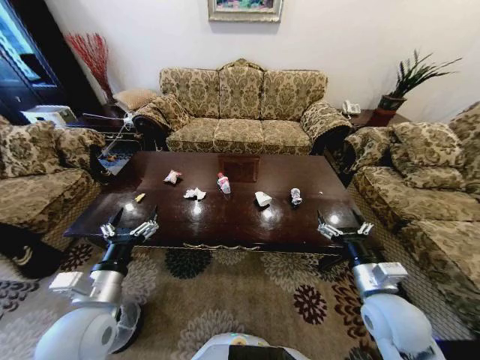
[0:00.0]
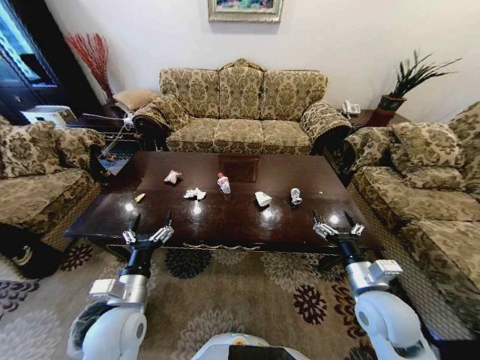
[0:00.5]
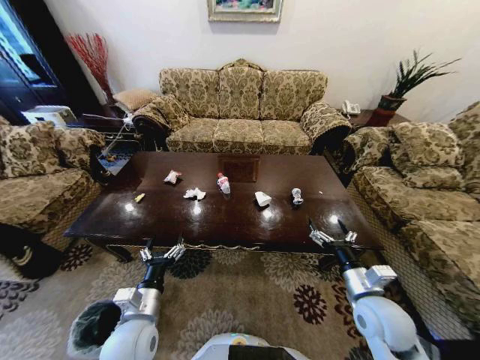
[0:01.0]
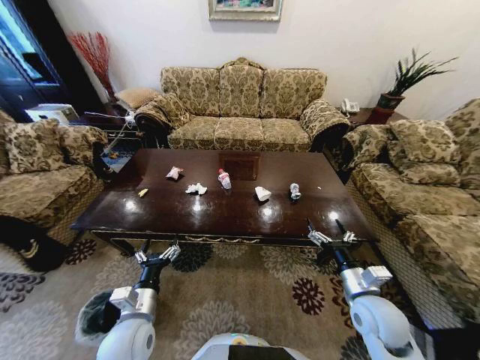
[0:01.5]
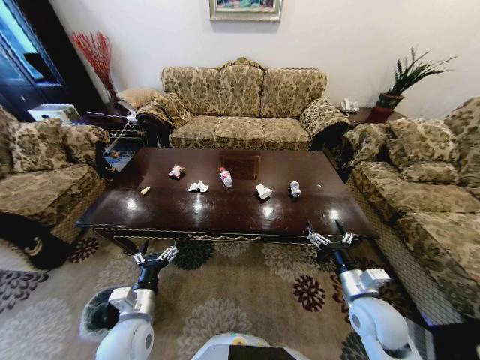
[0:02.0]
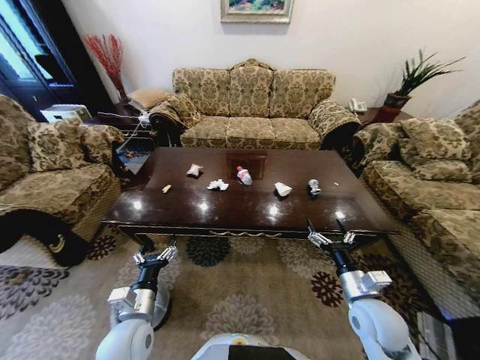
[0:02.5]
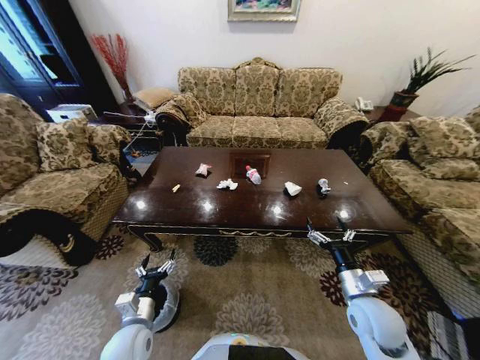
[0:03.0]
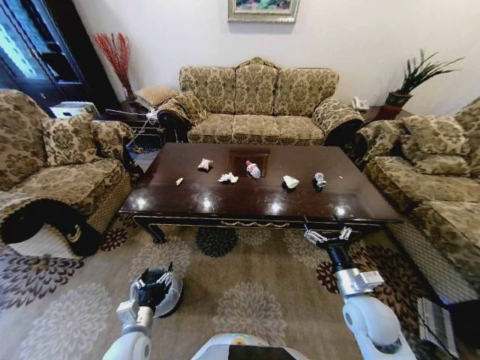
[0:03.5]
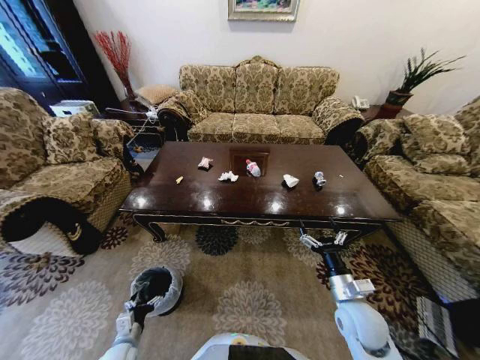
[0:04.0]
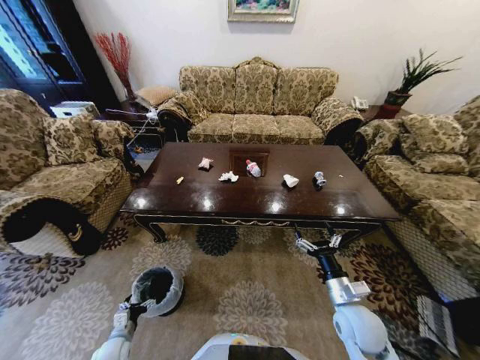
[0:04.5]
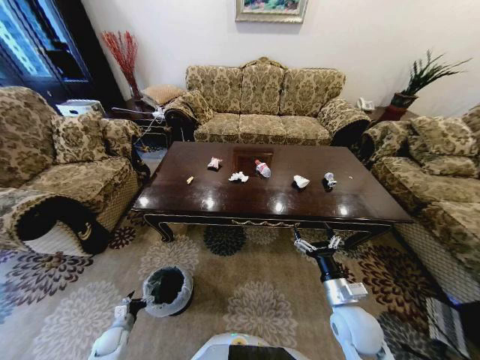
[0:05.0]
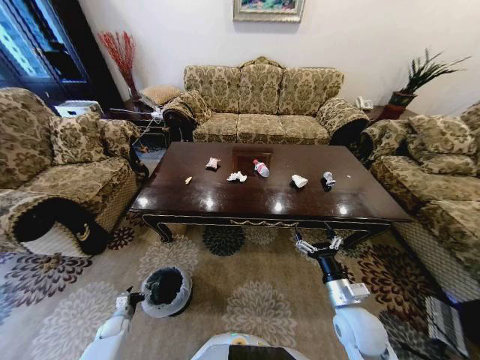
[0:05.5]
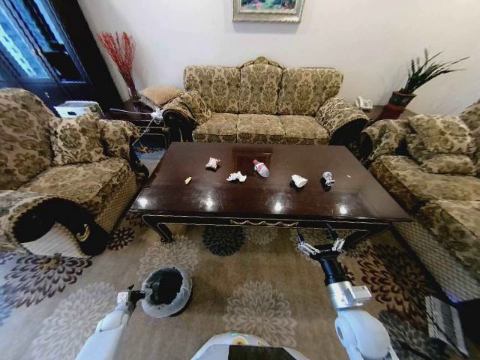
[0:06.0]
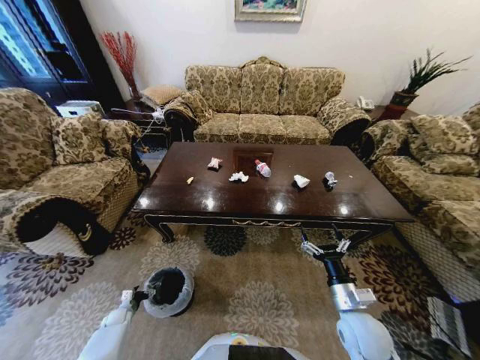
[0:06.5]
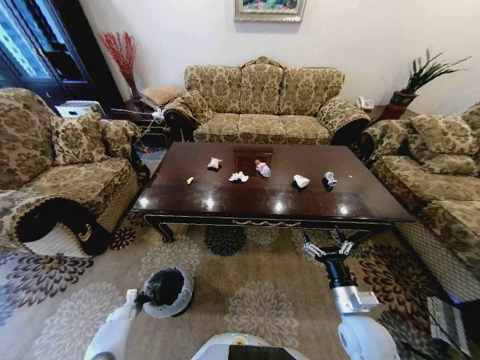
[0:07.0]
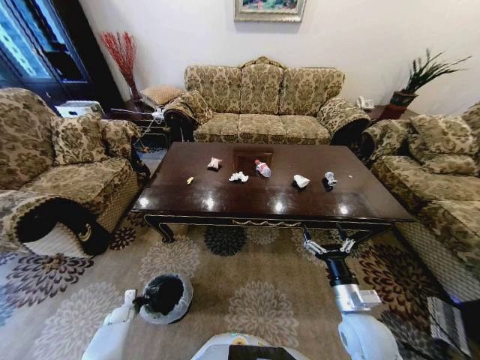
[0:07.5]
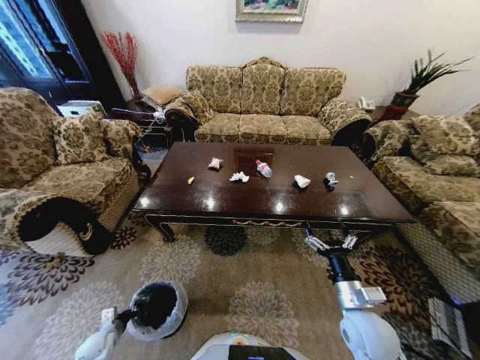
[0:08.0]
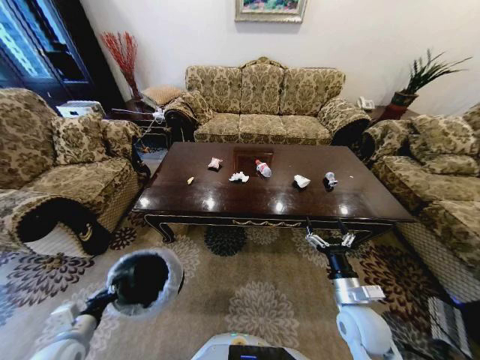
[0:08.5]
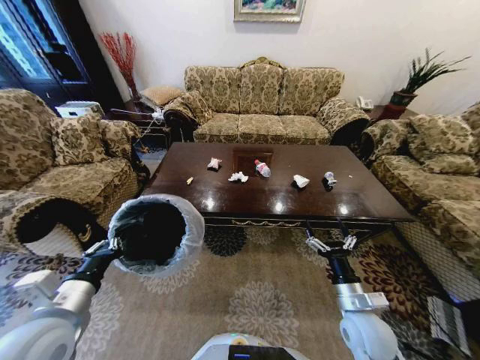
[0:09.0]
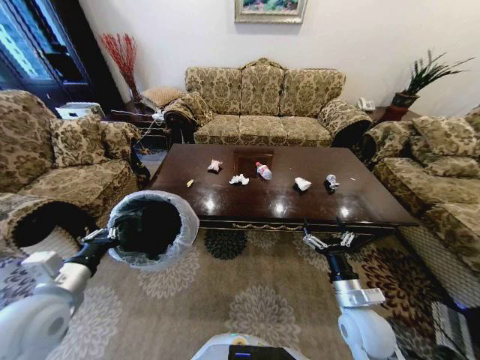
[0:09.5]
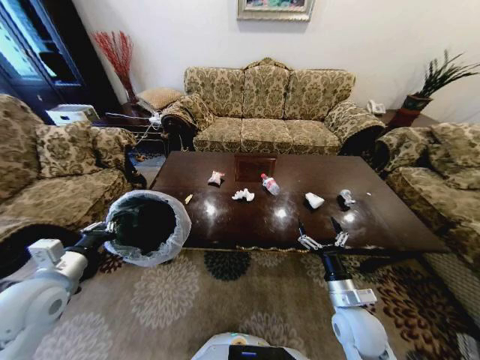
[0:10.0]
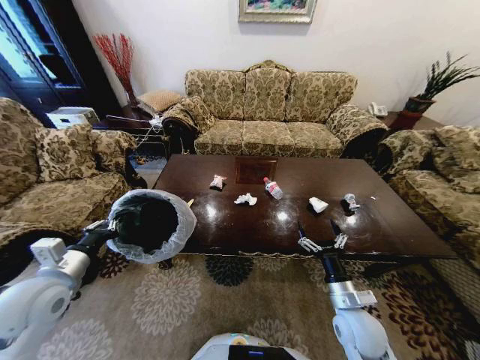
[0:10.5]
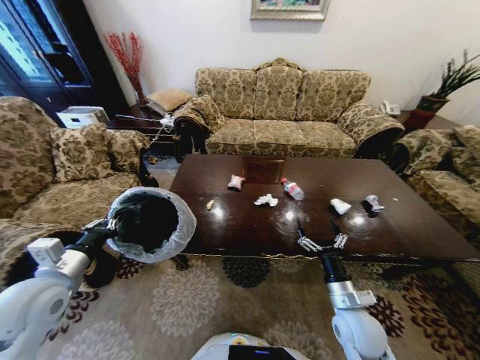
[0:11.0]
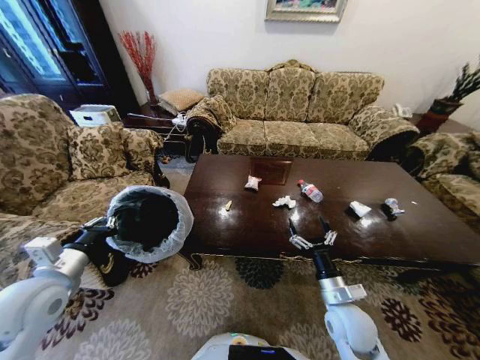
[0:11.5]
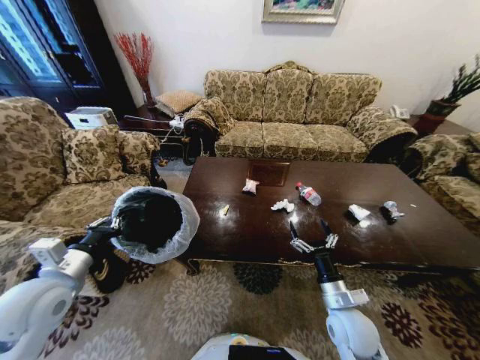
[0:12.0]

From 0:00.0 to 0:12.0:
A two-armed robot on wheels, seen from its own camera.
Task of the whole recording: Move to the front of the table and place the trash on the table into the trash bin.
From 0:02.0 to 0:04.0: The left gripper is displaced downward and to the left by roughly 20 cm.
From 0:04.0 to 0:06.0: The left gripper shifts some 20 cm to the left, downward and forward.
From 0:06.0 to 0:08.0: The left gripper goes about 5 cm backward, and closes.
From 0:08.0 to 0:10.0: The left gripper moves upward, roughly 40 cm.

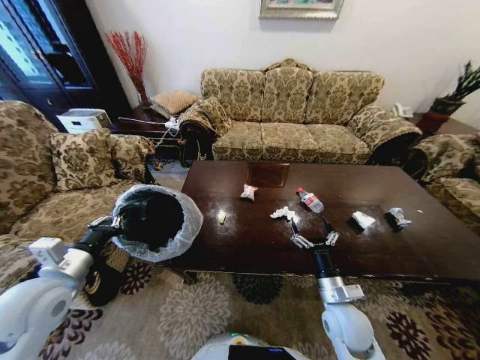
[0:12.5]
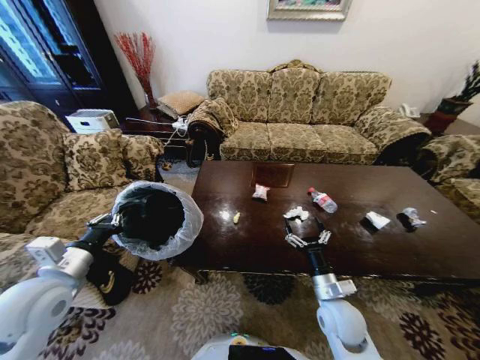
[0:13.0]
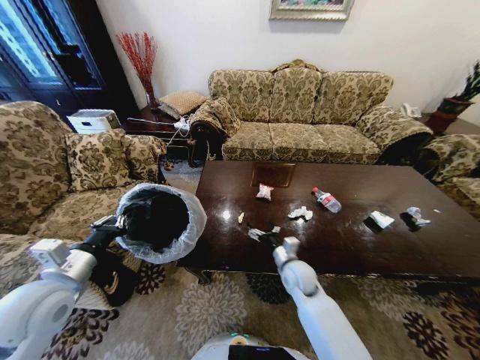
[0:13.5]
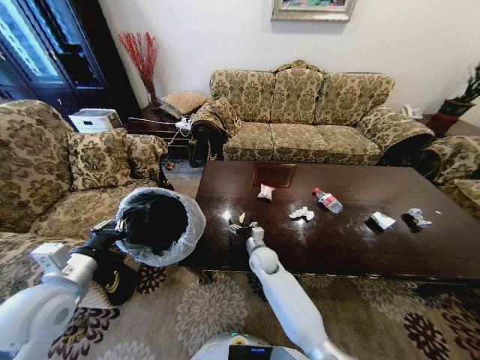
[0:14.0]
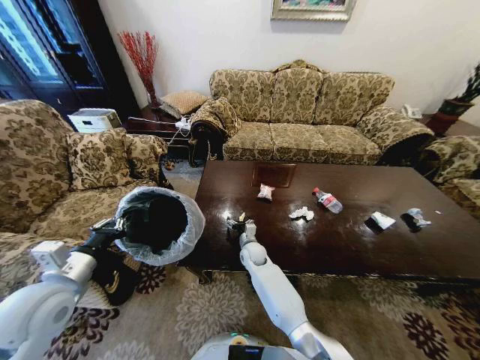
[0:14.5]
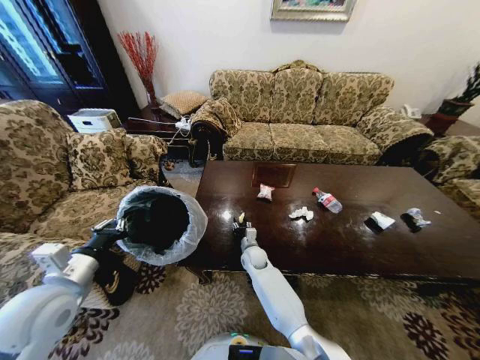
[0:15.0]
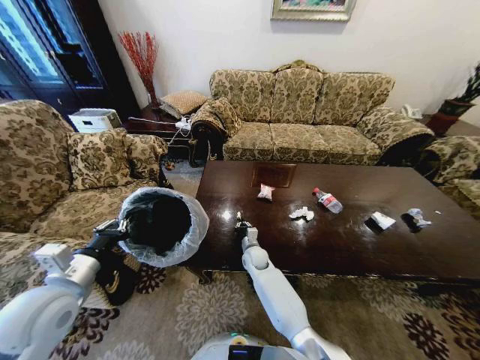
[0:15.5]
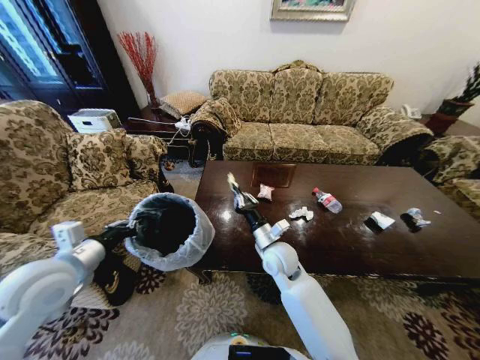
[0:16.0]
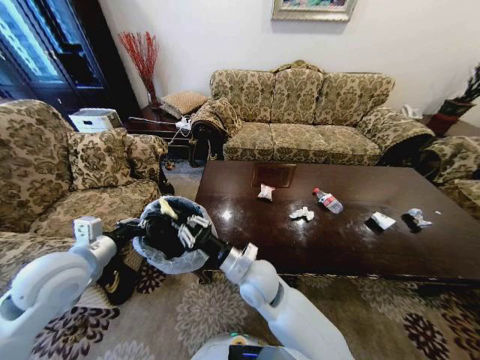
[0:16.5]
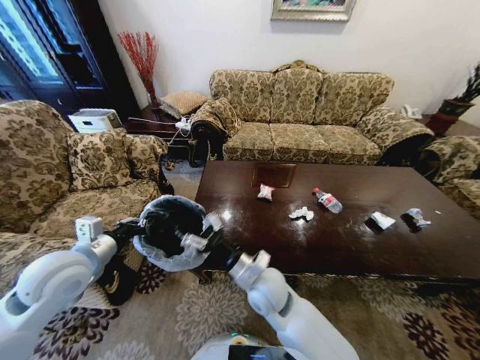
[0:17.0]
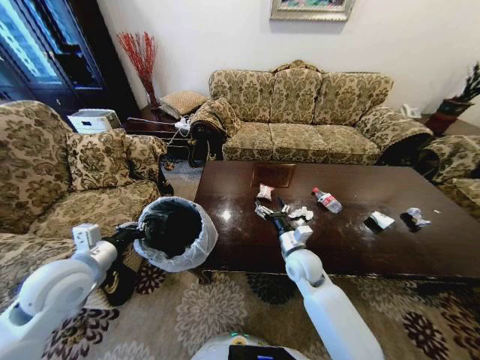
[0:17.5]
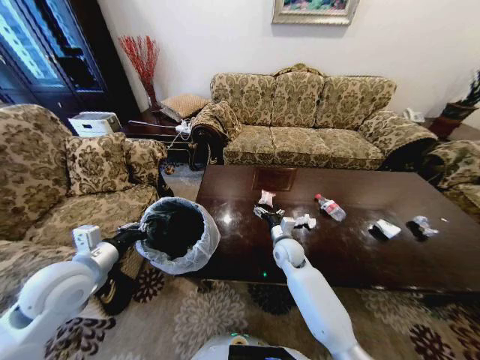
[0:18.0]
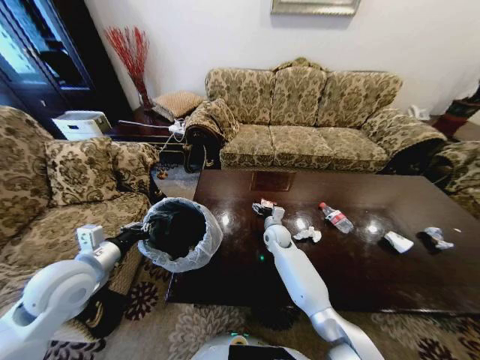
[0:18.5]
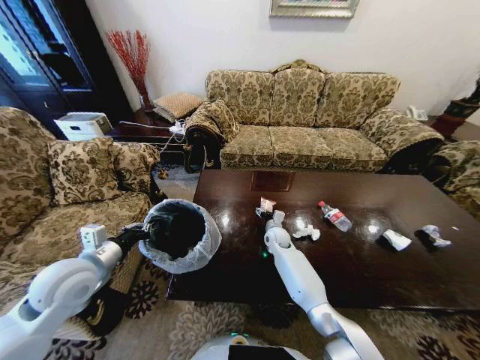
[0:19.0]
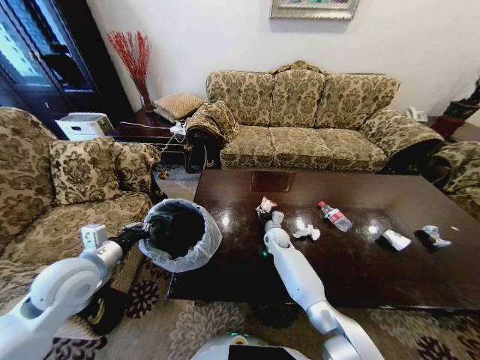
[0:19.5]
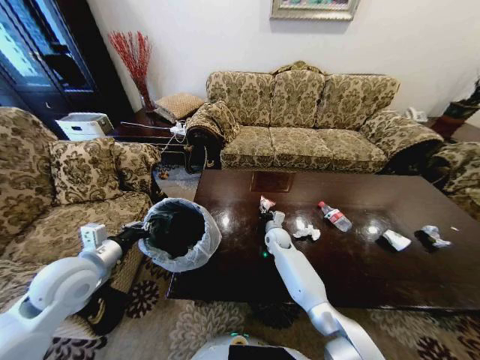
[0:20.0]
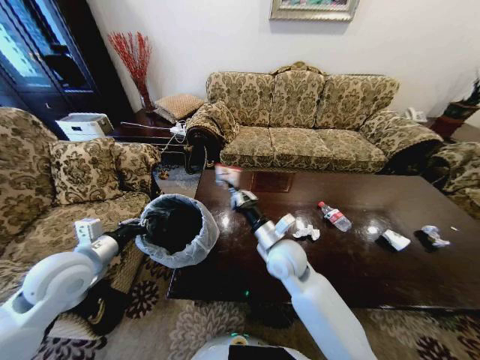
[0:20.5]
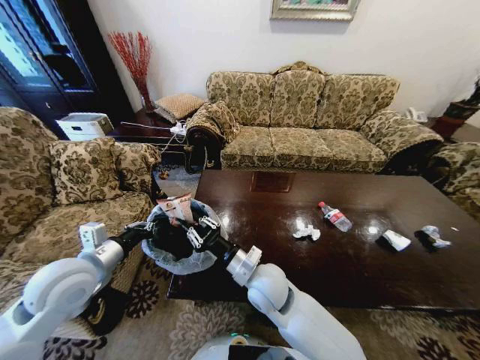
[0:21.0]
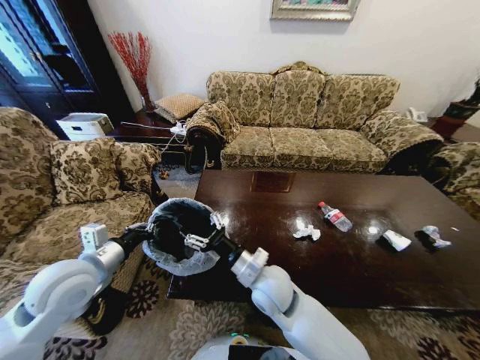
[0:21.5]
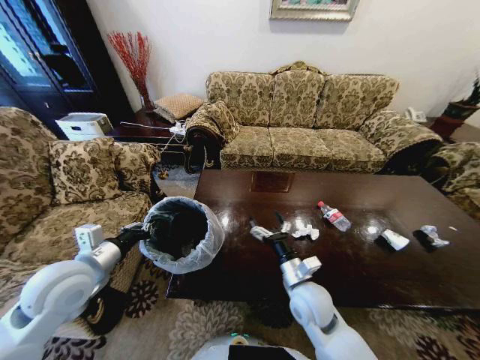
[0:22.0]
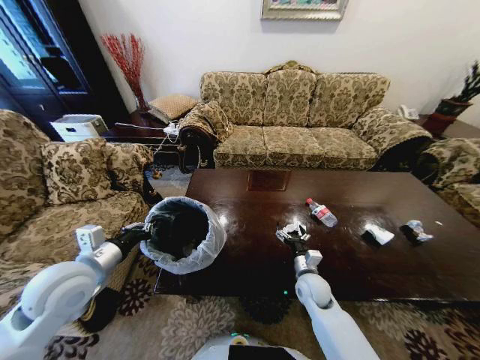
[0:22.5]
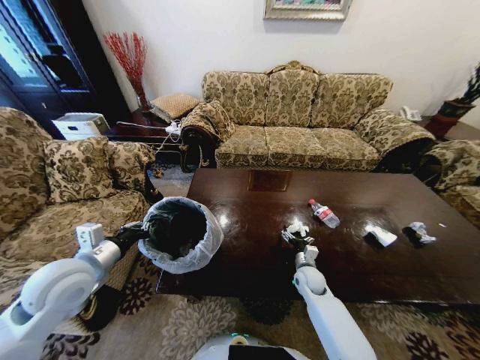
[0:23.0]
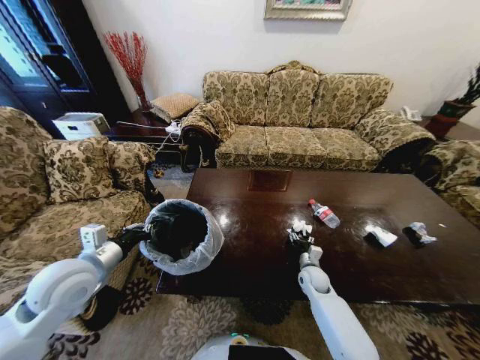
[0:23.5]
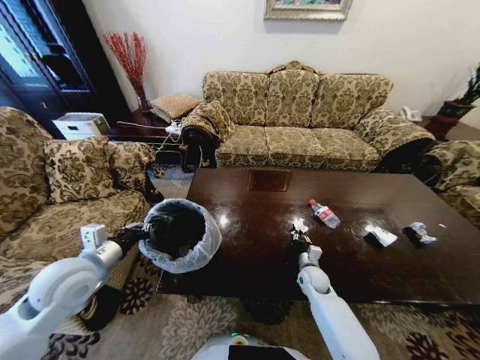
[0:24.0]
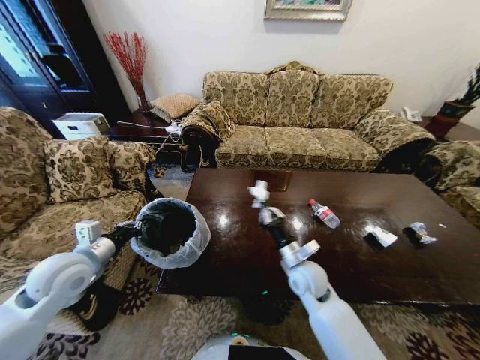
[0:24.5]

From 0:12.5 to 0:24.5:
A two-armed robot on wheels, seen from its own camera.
Task of the whole recording: Move to the front of the table and place the trash on the table into the trash bin.
From 0:12.5 to 0:14.5: The right gripper moves forward, to the left and downward, roughly 30 cm.
From 0:14.5 to 0:16.5: The left gripper changes place by some 5 cm, while the right gripper travels upward and backward by roughly 20 cm, and closes its fingers.
From 0:16.5 to 0:18.5: The right gripper goes about 25 cm forward, downward and to the right, and opens its fingers.
From 0:18.5 to 0:20.5: The right gripper shifts some 20 cm backward and upward, and closes its fingers.
From 0:20.5 to 0:22.5: The right gripper goes roughly 20 cm downward and to the right, and opens up.
From 0:22.5 to 0:24.5: The right gripper is displaced upward by approximately 5 cm, and closes its fingers. Meanwhile the left gripper moves roughly 5 cm.

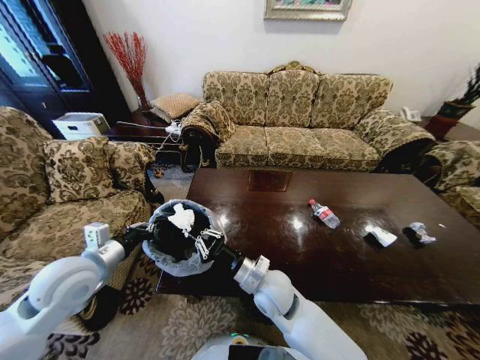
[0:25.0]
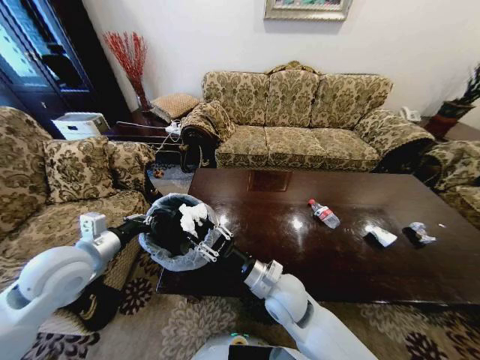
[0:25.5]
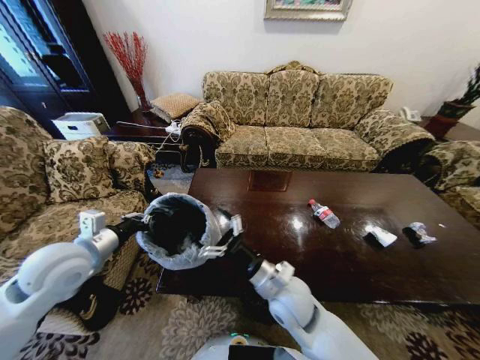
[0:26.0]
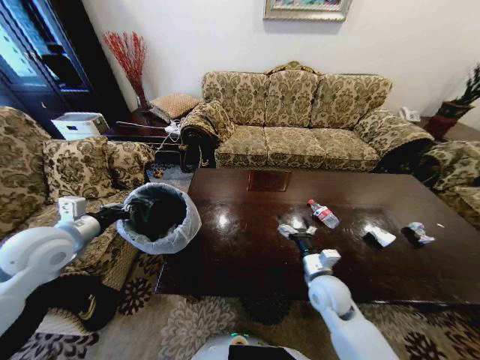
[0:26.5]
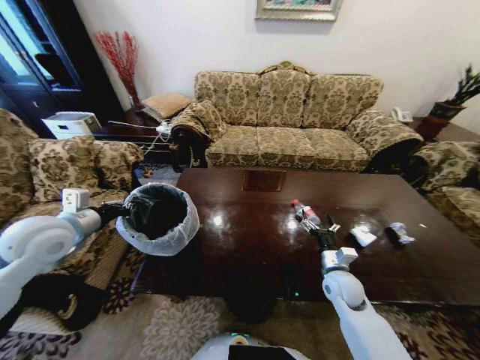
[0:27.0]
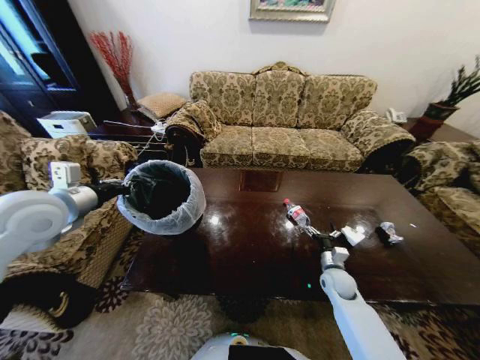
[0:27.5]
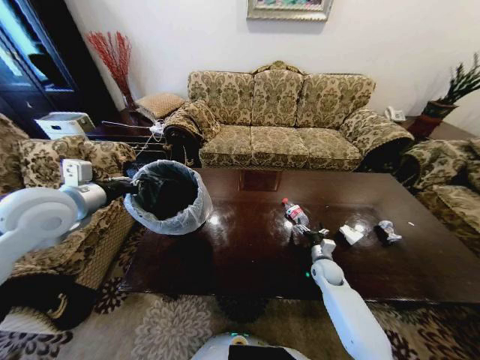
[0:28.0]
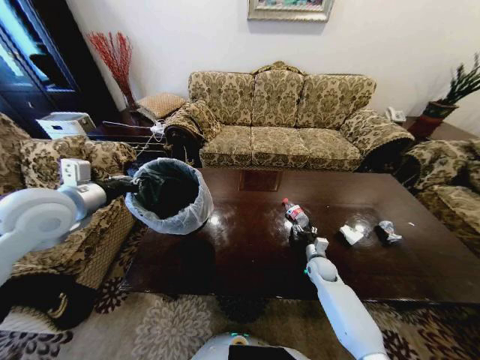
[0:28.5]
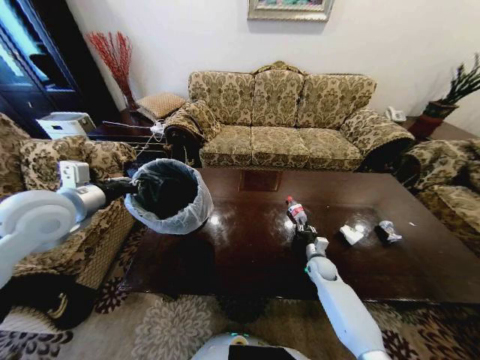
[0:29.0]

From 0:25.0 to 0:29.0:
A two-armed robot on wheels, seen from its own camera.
Task of the whole recording: Move to the front of the table and place the trash on the table into the trash bin.
From 0:25.0 to 0:27.0: The left gripper is displaced upward and forward by some 10 cm; the right gripper travels to the right by roughly 25 cm, and opens its fingers.
From 0:27.0 to 0:29.0: The left gripper heads upward, covering approximately 5 cm, while the right gripper goes about 15 cm downward and forward, and closes its fingers.
